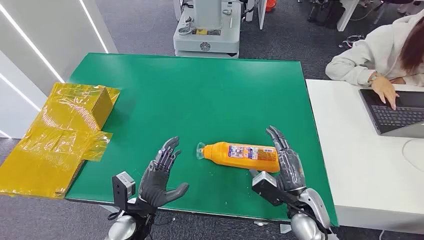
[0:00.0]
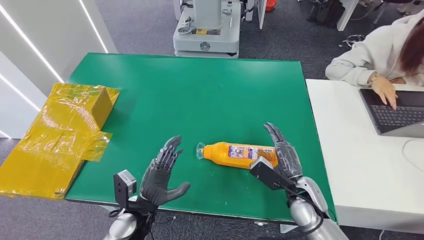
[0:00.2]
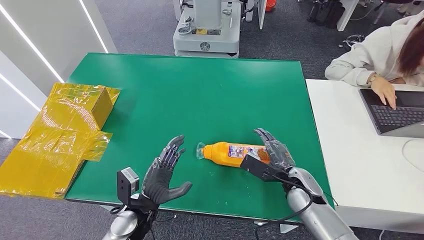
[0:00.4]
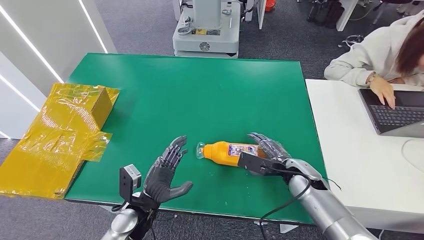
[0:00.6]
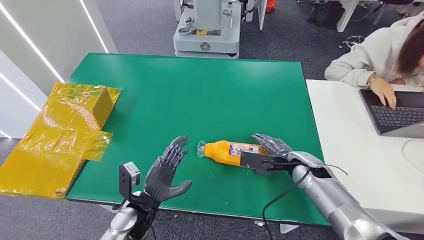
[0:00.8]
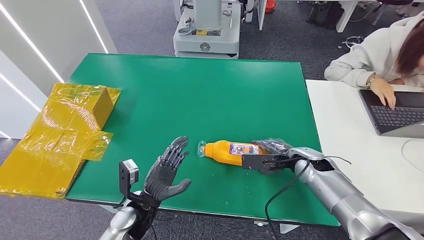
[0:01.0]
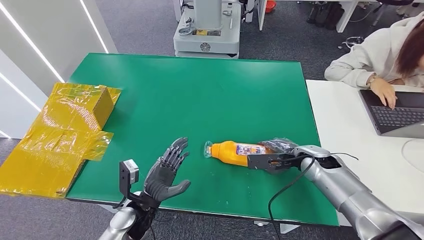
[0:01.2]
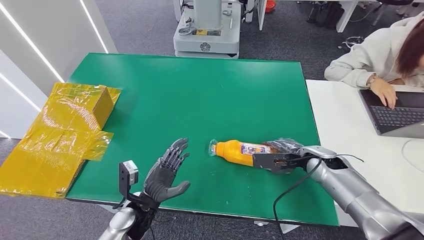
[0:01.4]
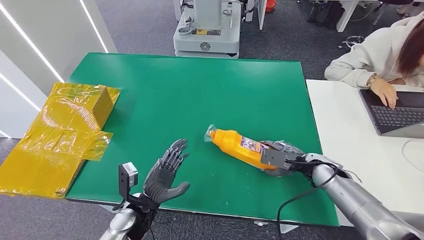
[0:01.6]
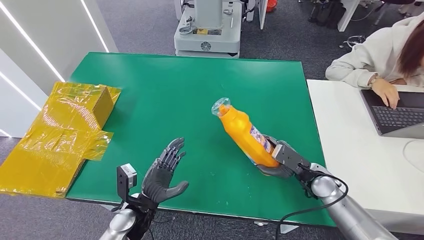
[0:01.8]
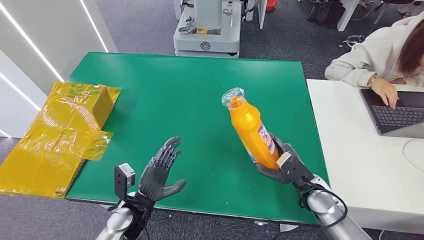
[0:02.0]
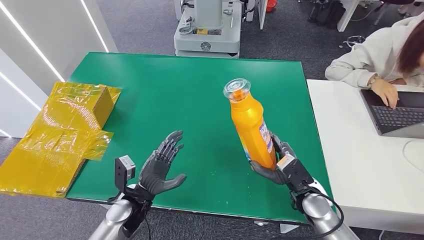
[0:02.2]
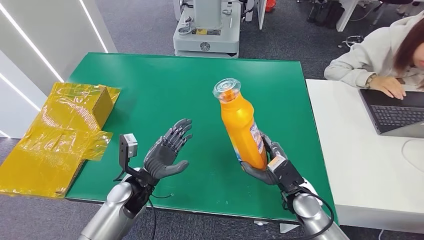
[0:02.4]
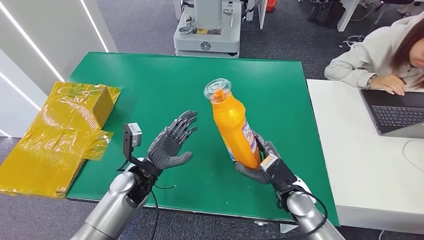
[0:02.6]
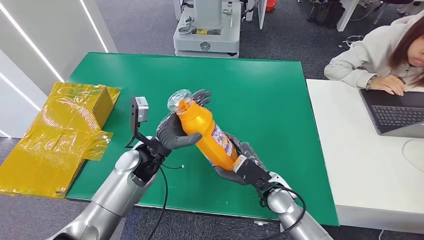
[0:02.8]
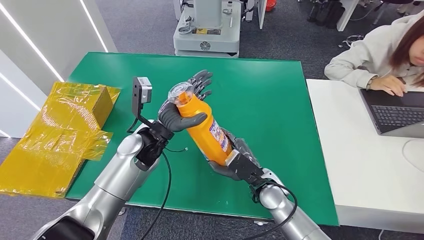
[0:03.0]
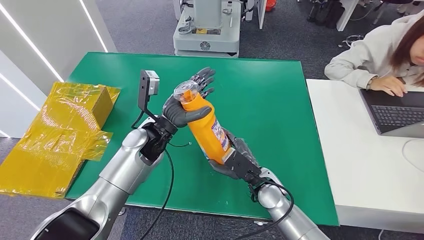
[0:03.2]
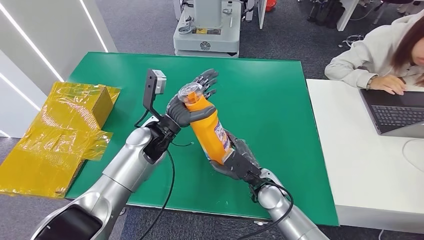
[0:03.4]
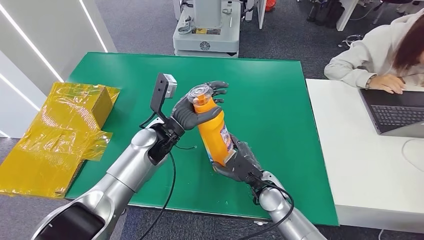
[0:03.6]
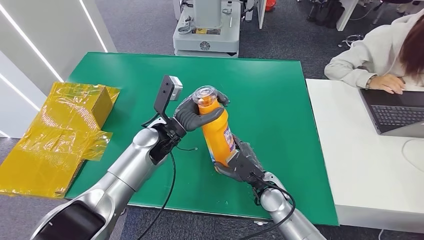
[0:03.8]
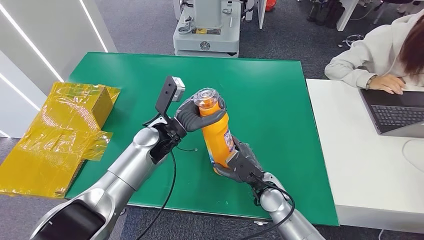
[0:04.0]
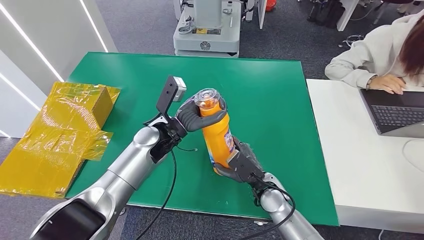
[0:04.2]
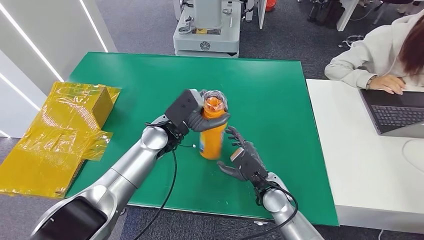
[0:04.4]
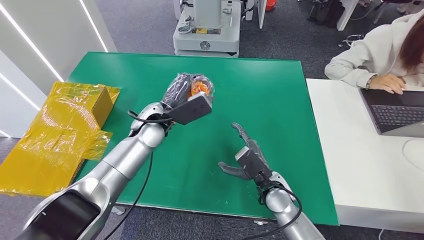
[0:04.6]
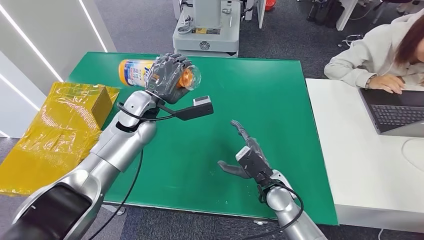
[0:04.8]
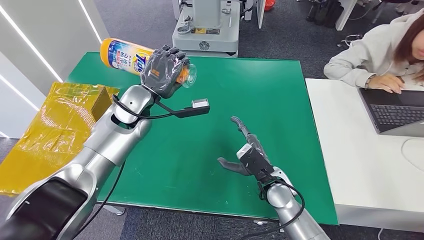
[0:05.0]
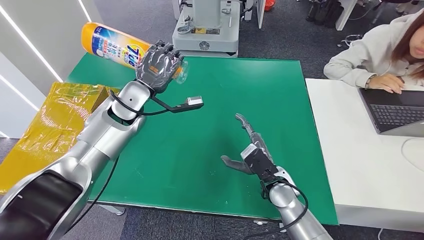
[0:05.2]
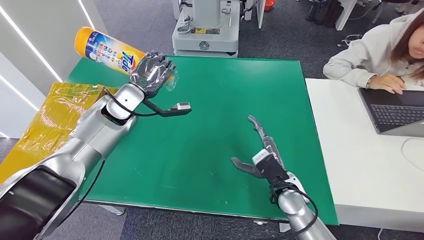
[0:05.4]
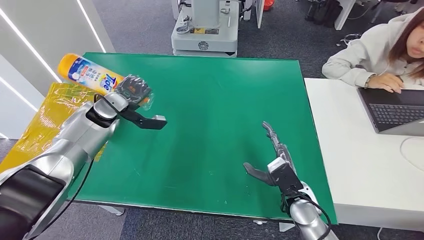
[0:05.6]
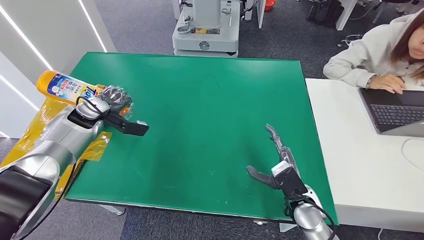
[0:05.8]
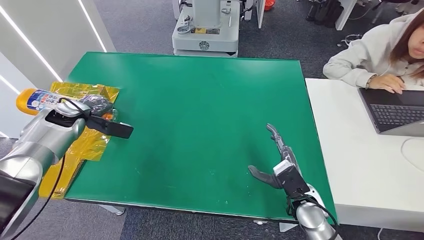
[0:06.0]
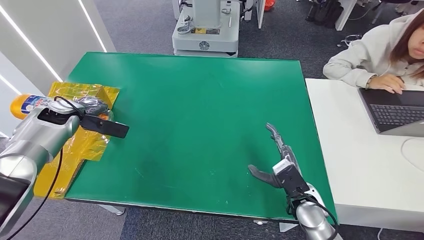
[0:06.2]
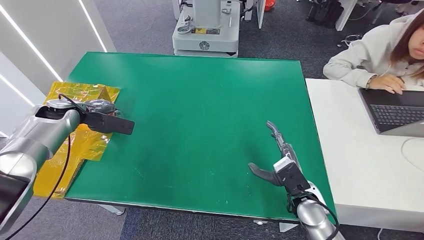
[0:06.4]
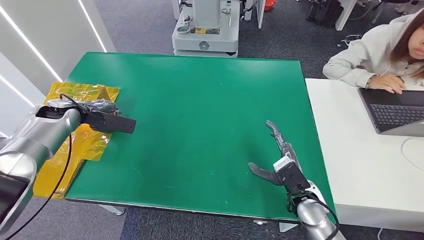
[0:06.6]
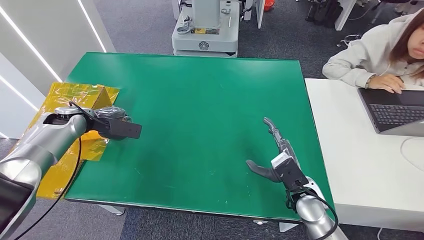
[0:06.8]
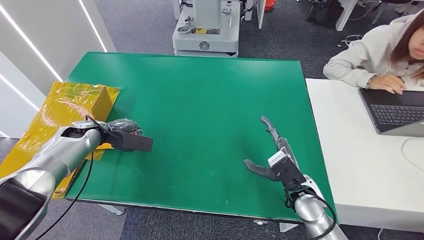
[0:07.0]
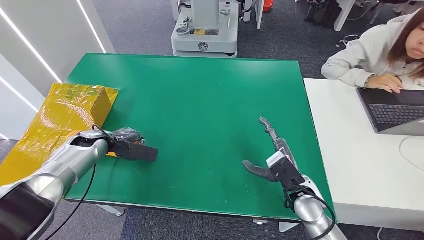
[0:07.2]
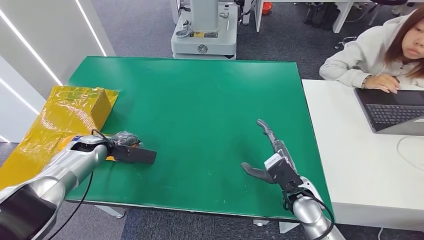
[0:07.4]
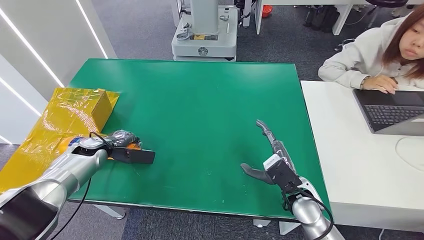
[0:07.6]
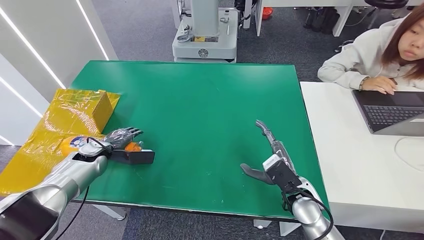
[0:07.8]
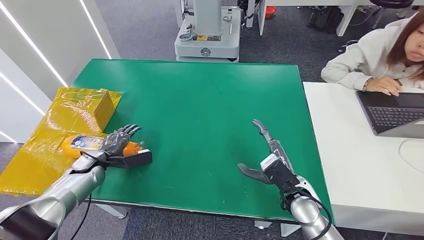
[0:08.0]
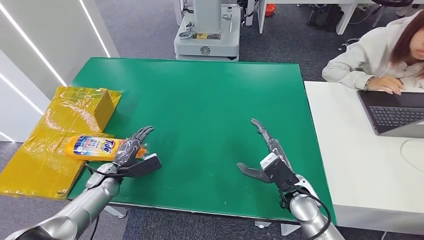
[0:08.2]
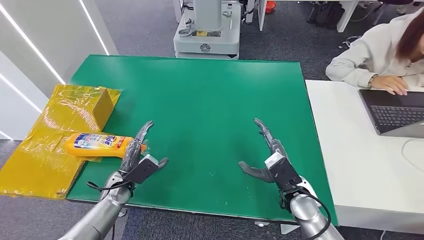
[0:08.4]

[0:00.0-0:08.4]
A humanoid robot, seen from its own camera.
Step, 0:00.0 to 0:02.2: Pick up the bottle from the table.
Step, 0:02.6 to 0:08.2: Turn the bottle to the front side.
0:02.8 to 0:04.2: The left hand shifts by some 5 cm.
0:05.6 to 0:07.0: The left hand travels to the left and downward by some 10 cm.
0:07.0 to 0:08.4: The left hand moves downward, backward and to the right, some 20 cm.
